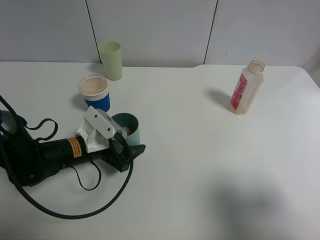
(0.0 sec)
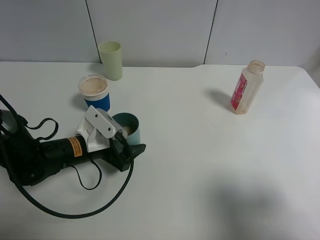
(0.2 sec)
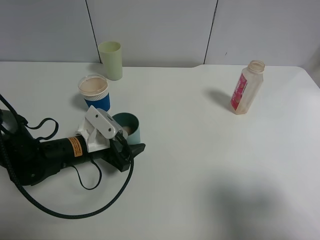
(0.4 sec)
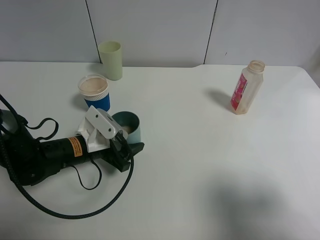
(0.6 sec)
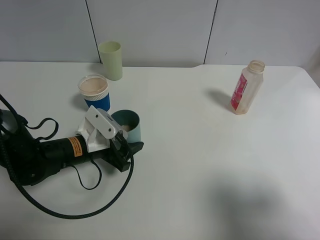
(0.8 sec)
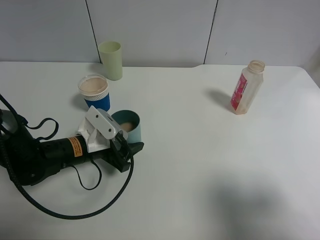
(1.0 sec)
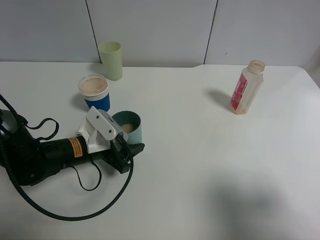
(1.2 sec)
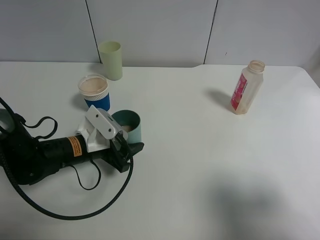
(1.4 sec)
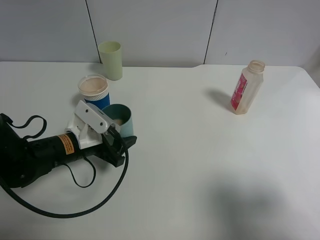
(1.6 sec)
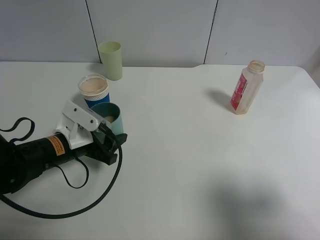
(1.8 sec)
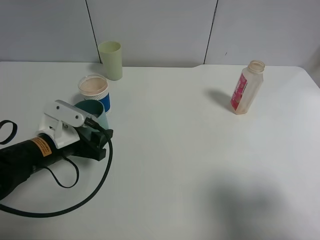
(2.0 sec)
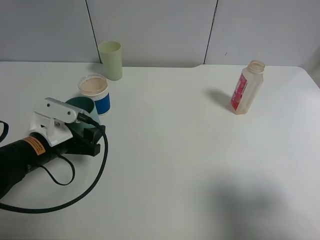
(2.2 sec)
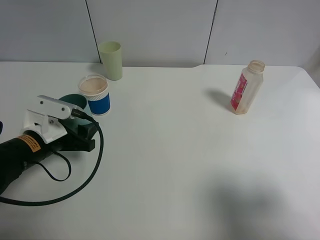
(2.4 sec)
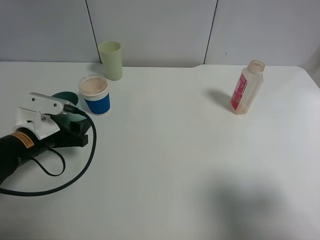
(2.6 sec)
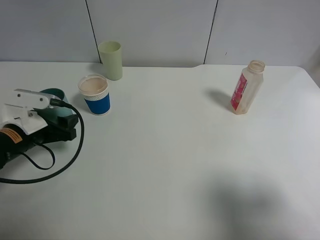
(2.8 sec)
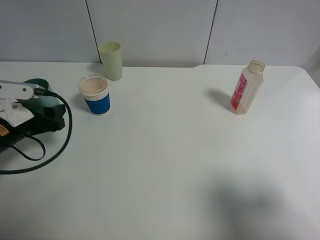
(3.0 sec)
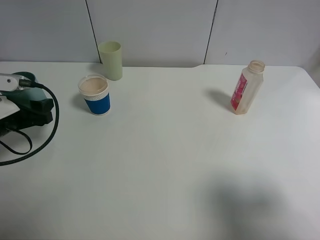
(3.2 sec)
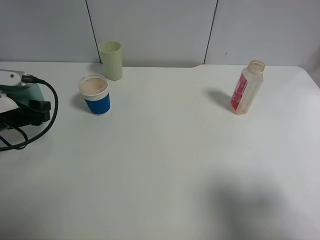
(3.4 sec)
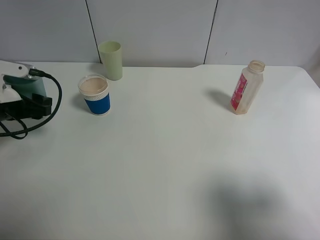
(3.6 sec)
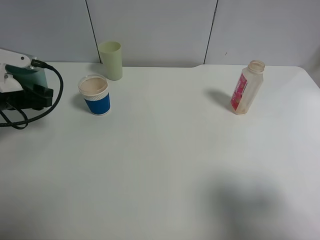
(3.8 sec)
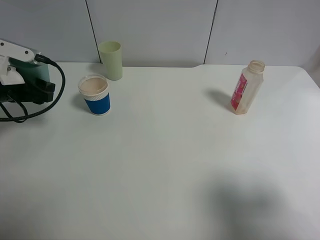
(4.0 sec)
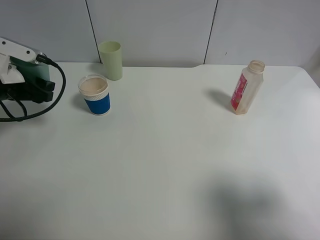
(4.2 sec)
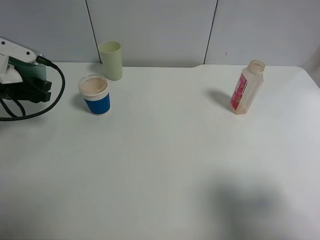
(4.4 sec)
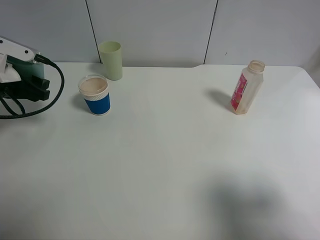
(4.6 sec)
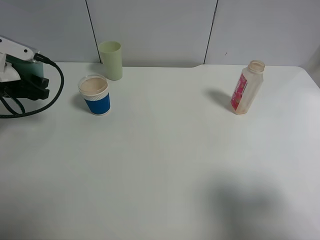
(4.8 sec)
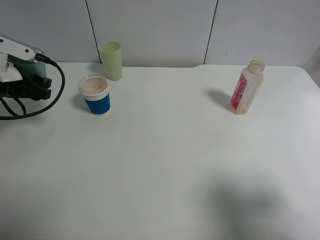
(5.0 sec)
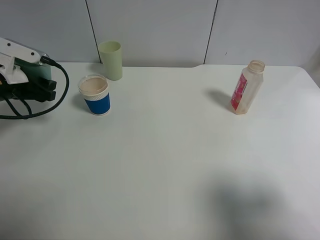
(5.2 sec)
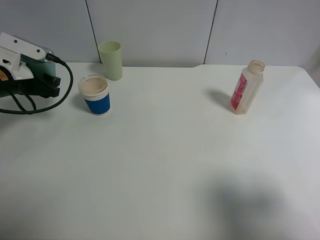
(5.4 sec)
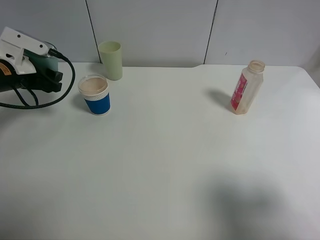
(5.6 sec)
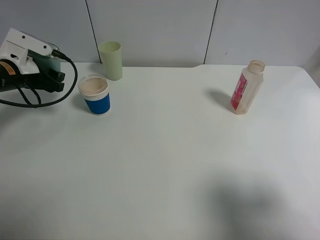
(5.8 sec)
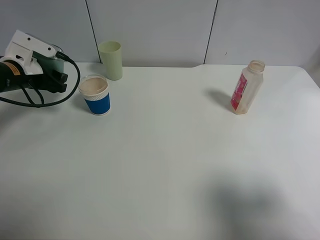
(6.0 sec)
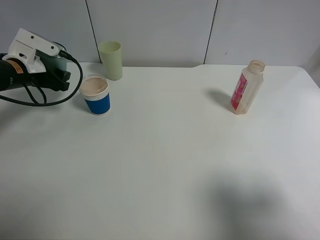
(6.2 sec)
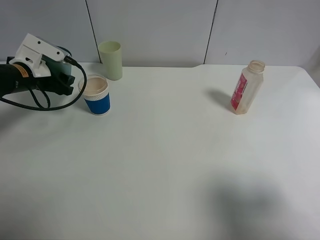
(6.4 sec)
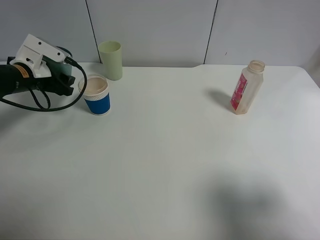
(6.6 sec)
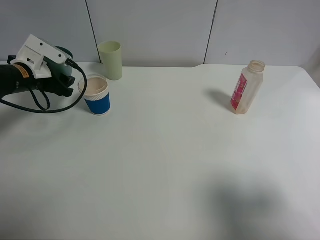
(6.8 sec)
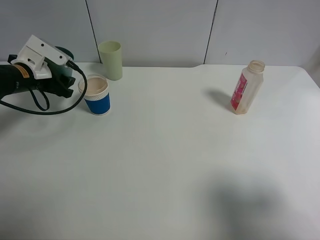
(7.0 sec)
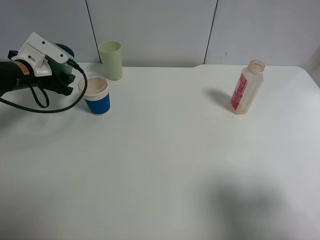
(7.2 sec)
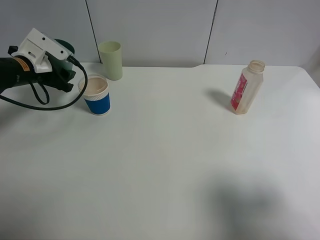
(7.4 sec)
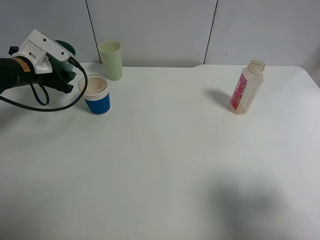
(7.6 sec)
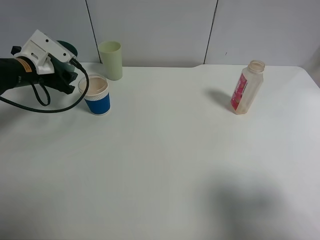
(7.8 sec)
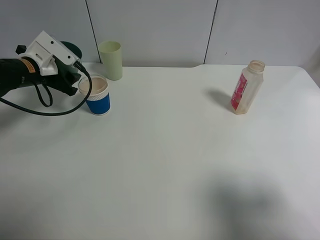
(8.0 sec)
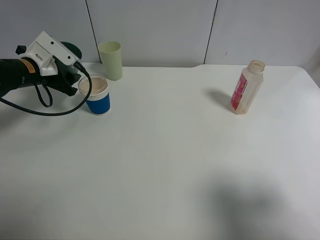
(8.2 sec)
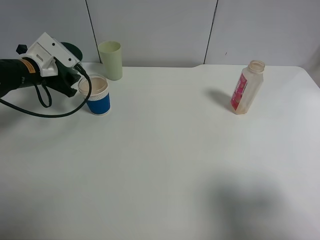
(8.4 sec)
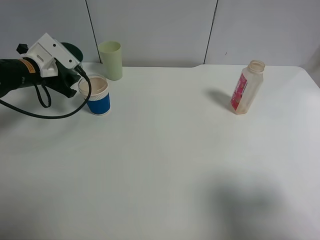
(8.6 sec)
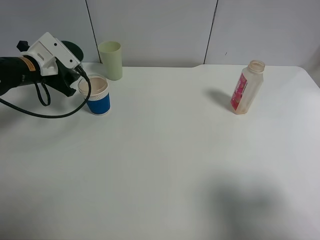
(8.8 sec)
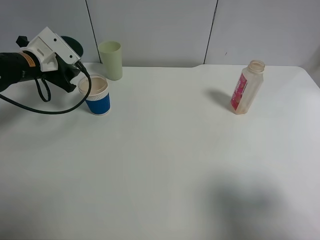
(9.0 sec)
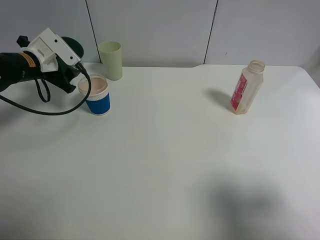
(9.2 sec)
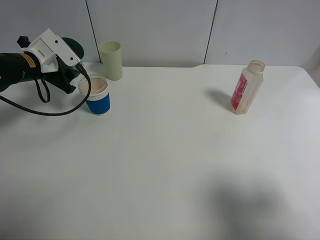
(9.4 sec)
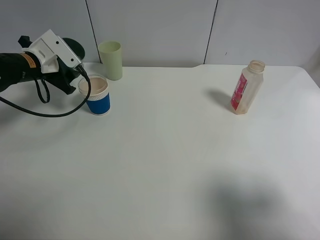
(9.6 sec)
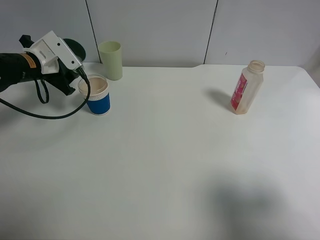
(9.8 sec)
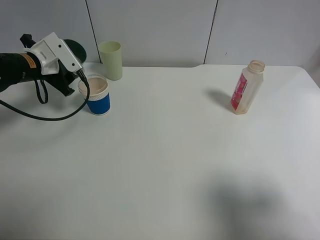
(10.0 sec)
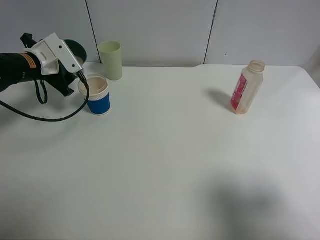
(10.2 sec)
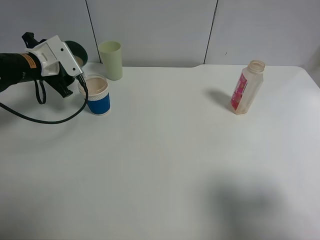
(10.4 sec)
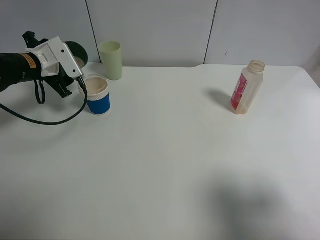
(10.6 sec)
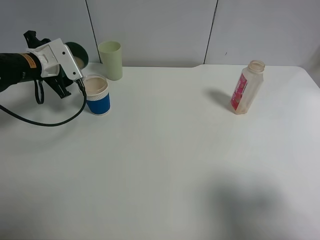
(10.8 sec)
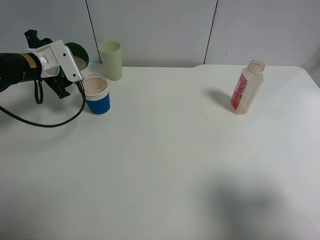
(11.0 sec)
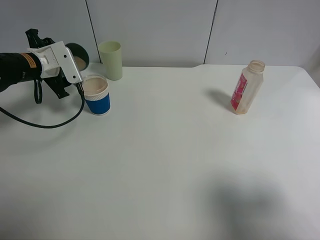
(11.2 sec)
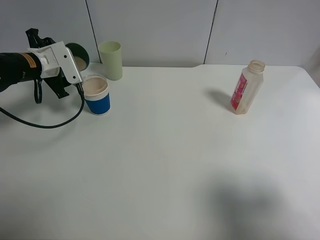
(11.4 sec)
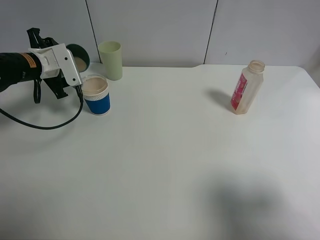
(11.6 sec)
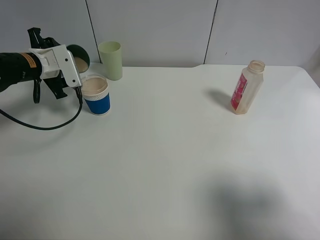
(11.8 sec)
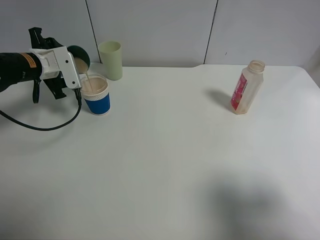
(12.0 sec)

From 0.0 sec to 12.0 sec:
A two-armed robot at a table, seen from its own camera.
Task of the whole recording: use a clamp to hold the bottle of the drink, pour the beverage into a random cup, then clamp the cup containing the drink and pour the drink into another random cup.
Step, from 0.0 sec to 3.6 sec: Pick up the blue plastic cup bottle with left gripper.
From 0.0 sec to 1.6 sec: The left gripper closes its fingers.
From 1.6 sec to 3.0 sec: The left gripper moves to the left, roughly 10 cm.
From 3.0 sec to 4.4 sec: The left gripper shifts roughly 10 cm upward and forward.
From 4.4 sec to 6.0 sec: The left gripper is displaced forward by roughly 5 cm.
From 6.0 sec to 7.6 sec: The grippers move only a little.
From 7.6 sec to 9.0 sec: There are only small adjustments of the grippers.
From 9.0 sec to 10.4 sec: There are only small adjustments of the grippers.

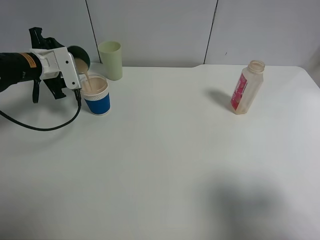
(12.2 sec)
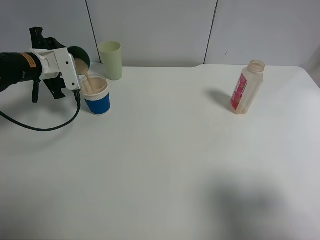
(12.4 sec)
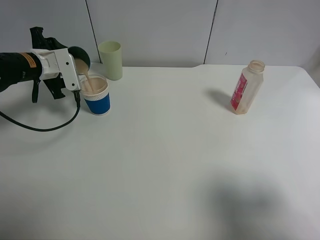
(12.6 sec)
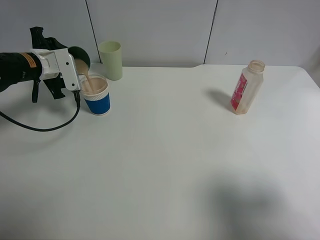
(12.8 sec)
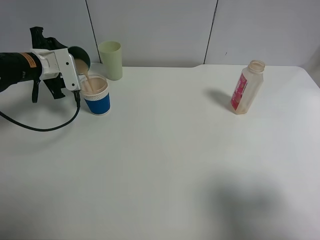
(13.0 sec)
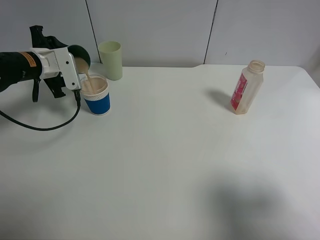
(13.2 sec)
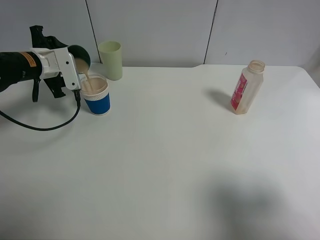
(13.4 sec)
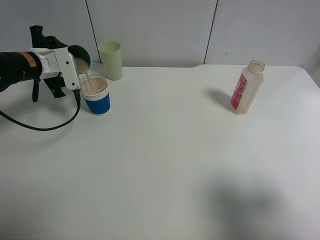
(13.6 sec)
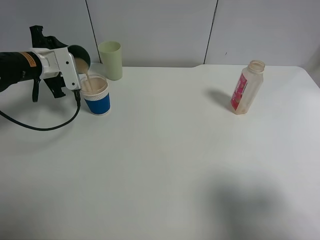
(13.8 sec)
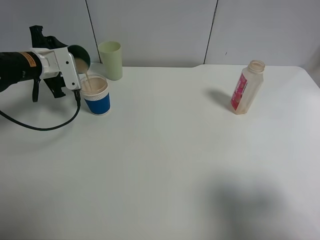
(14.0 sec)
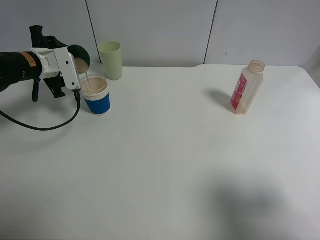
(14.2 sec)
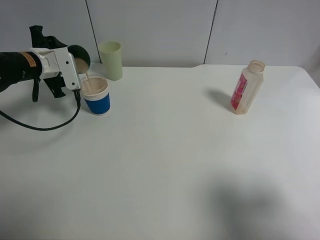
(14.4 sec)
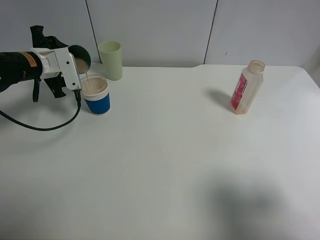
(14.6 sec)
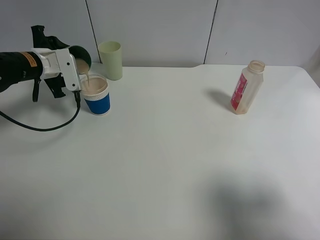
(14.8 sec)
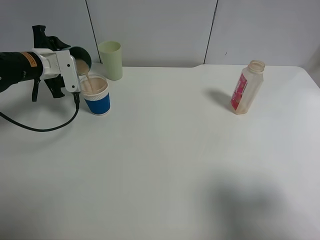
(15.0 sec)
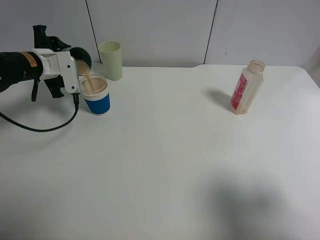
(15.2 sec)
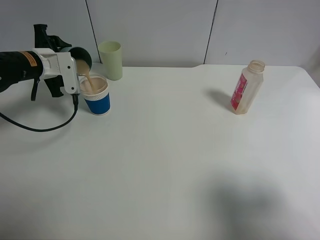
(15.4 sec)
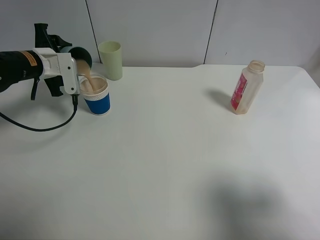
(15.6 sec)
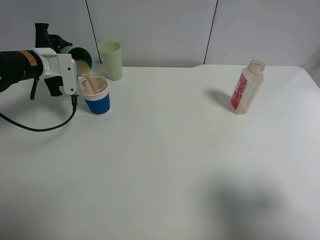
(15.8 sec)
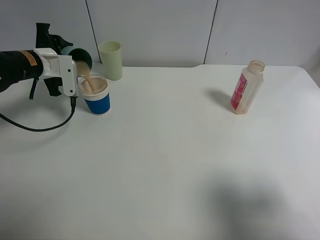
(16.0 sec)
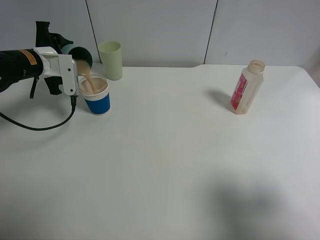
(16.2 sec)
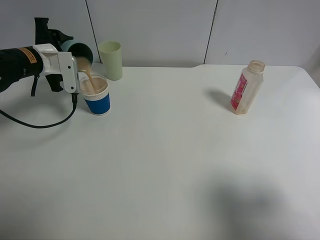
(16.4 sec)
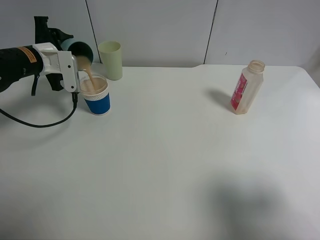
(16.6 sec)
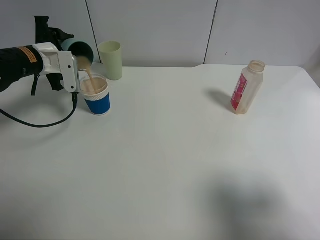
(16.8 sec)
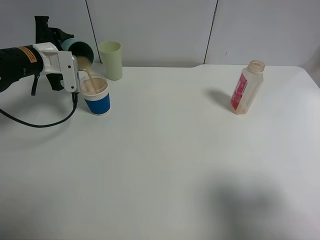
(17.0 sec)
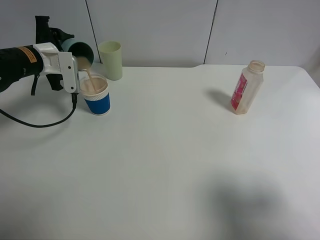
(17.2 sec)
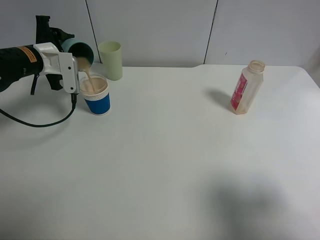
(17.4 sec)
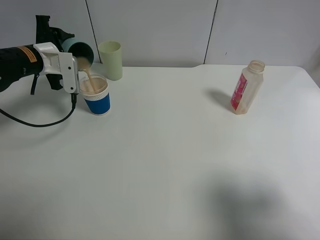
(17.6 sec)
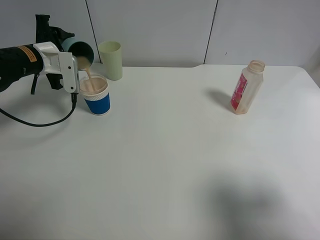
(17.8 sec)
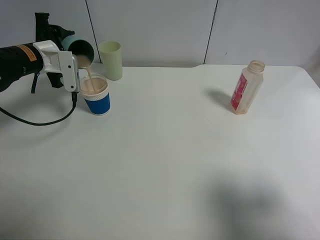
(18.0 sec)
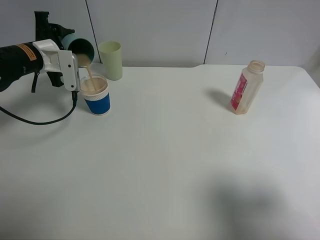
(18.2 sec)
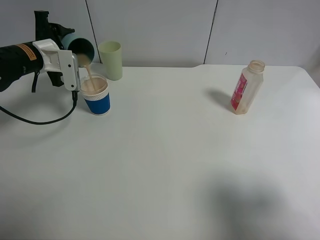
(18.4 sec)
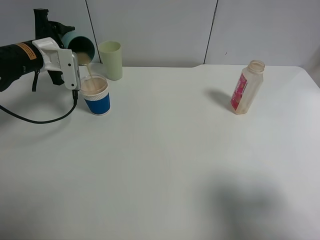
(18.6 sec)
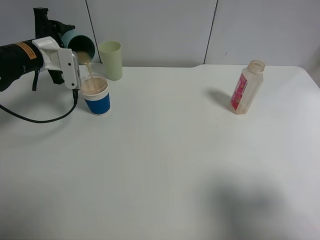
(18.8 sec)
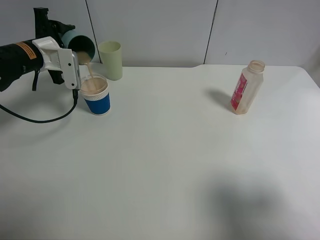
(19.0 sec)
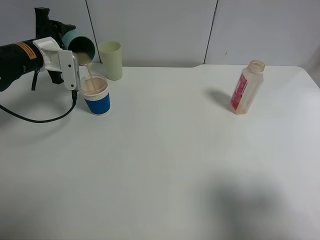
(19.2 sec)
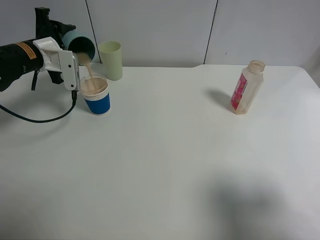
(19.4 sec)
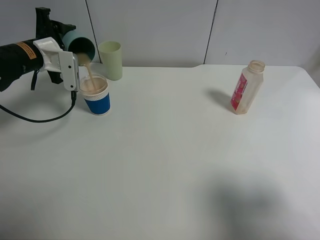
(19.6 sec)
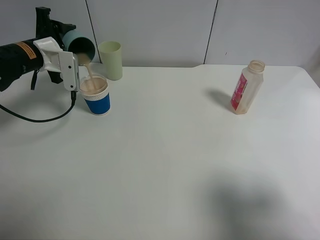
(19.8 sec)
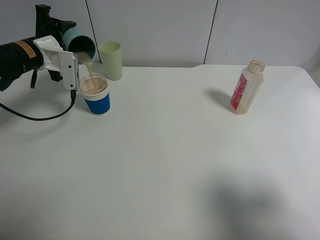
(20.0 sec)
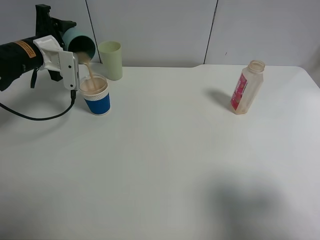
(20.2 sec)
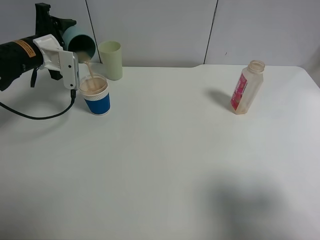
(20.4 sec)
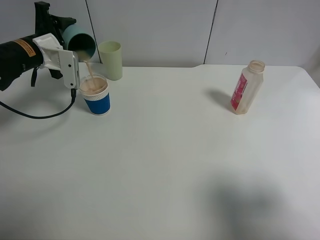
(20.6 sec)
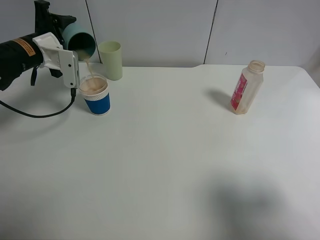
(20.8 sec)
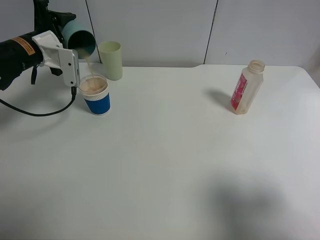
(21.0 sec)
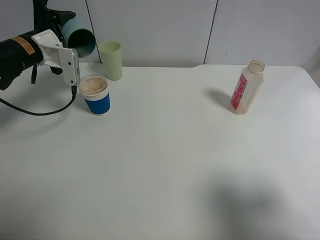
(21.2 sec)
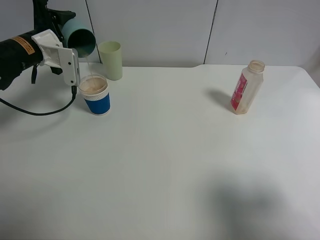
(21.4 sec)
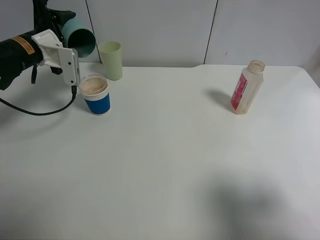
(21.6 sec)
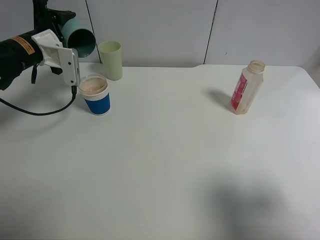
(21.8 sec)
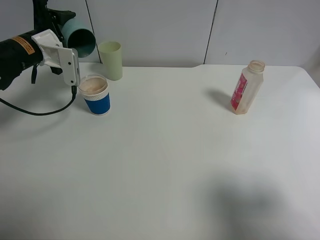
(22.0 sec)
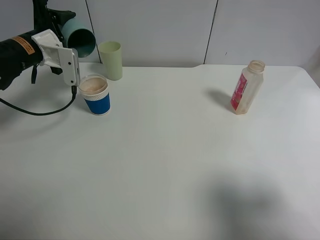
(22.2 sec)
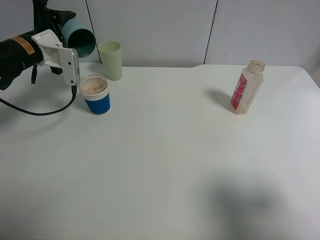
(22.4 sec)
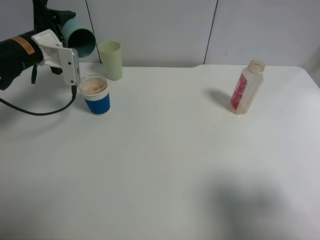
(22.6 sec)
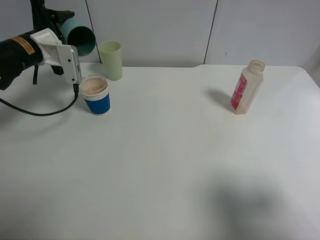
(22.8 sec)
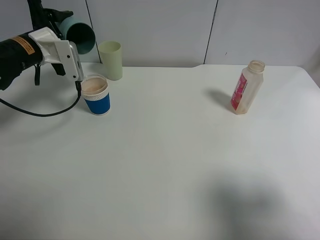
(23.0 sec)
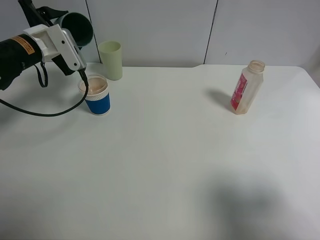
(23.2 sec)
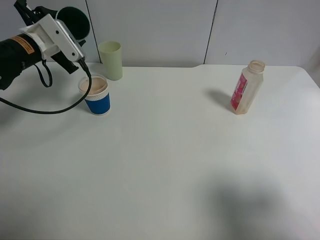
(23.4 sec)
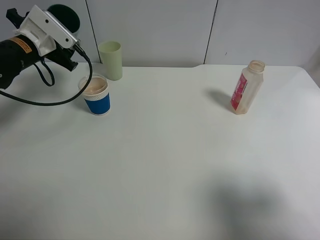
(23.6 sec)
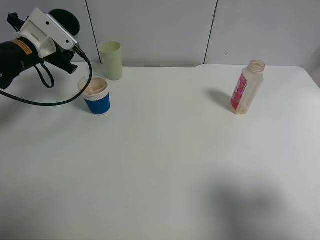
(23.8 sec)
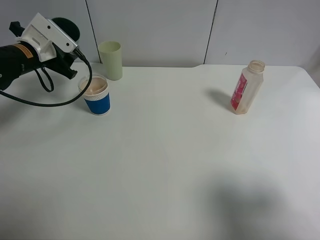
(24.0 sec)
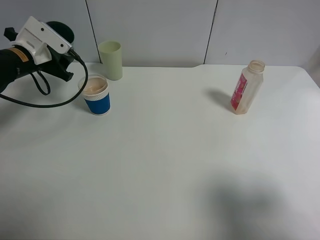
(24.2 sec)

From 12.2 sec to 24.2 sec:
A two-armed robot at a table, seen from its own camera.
Task of the whole recording: use a clamp to hold the bottle of the drink, pour the beverage into a random cup, then clamp the cup containing the drink and pour the drink into another random cup.
Step, from 12.2 sec to 23.8 sec: Pour the drink into the paper cup with left gripper.
From 12.2 sec to 13.8 sec: Both grippers stay about where they are.
From 13.8 sec to 15.2 sec: The two grippers keep their place.
From 15.2 sec to 18.2 sec: The grippers move only a little.
From 18.2 sec to 21.2 sec: There are only small adjustments of the grippers.
From 21.2 sec to 22.6 sec: Both grippers stay about where they are.
